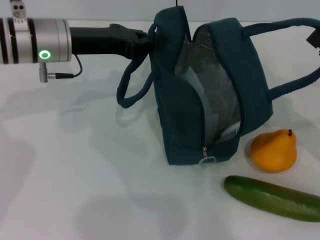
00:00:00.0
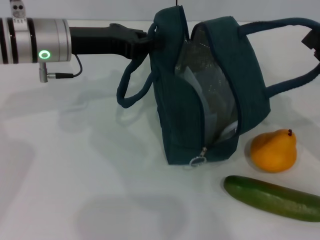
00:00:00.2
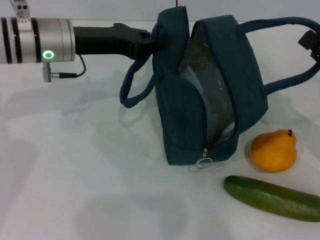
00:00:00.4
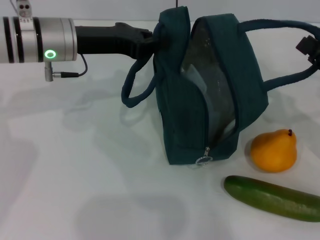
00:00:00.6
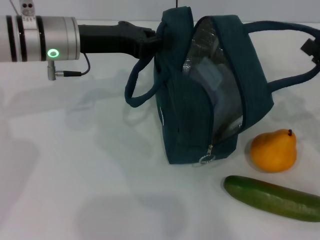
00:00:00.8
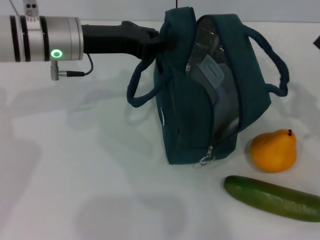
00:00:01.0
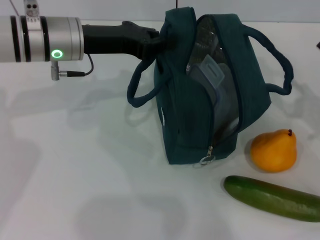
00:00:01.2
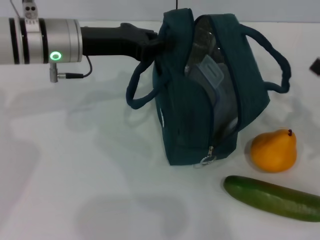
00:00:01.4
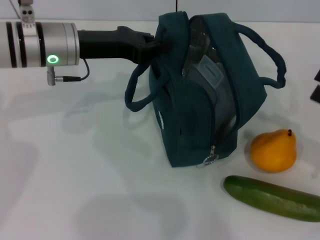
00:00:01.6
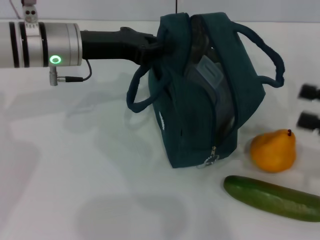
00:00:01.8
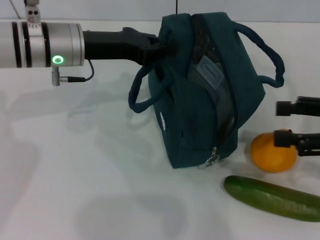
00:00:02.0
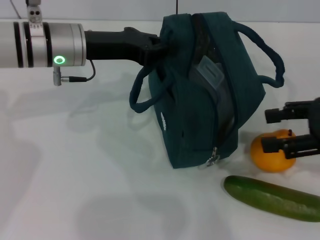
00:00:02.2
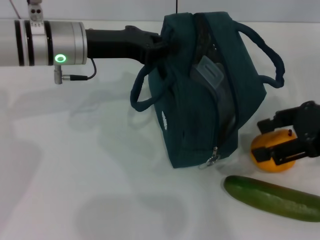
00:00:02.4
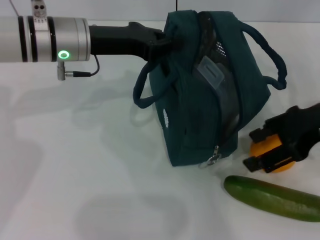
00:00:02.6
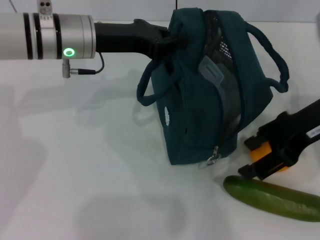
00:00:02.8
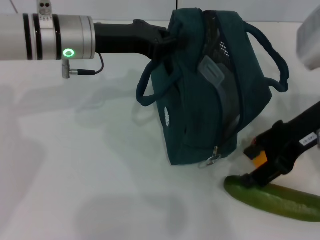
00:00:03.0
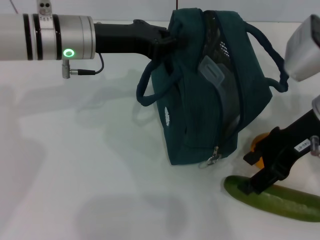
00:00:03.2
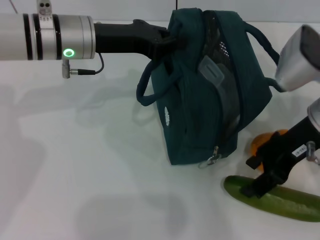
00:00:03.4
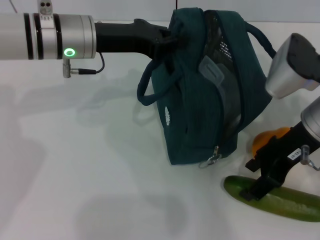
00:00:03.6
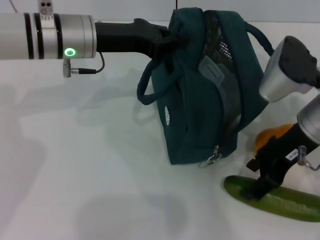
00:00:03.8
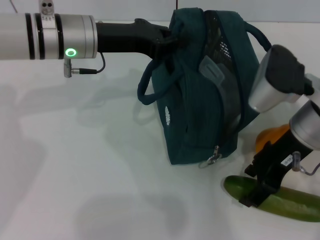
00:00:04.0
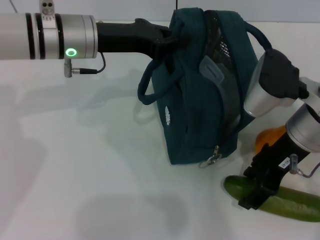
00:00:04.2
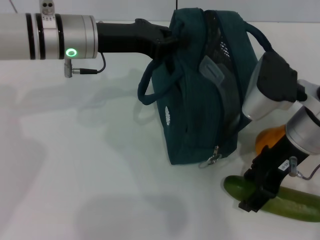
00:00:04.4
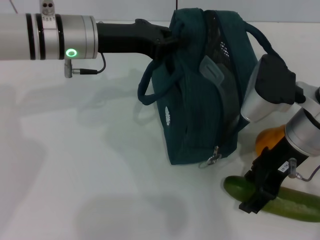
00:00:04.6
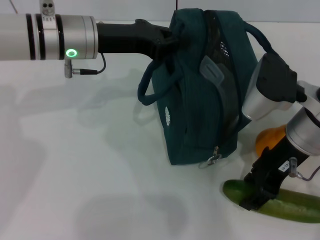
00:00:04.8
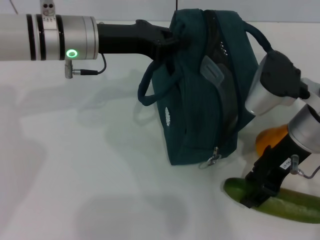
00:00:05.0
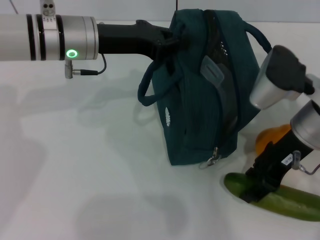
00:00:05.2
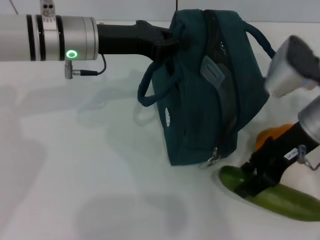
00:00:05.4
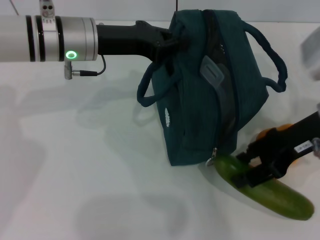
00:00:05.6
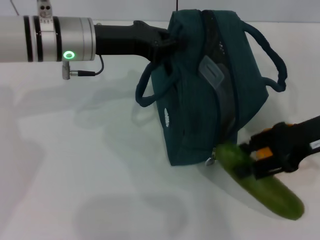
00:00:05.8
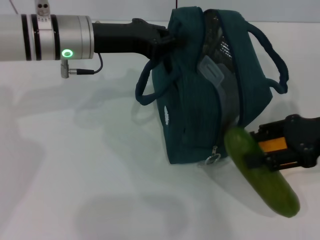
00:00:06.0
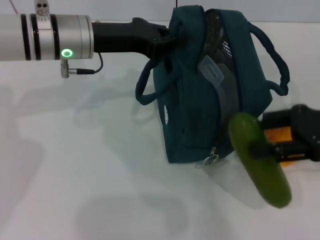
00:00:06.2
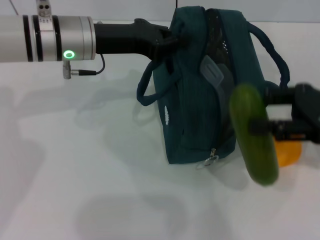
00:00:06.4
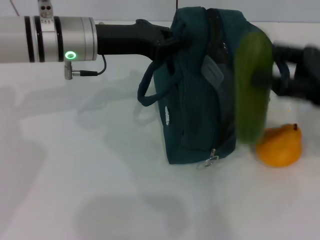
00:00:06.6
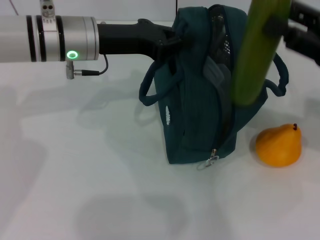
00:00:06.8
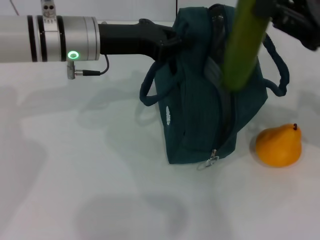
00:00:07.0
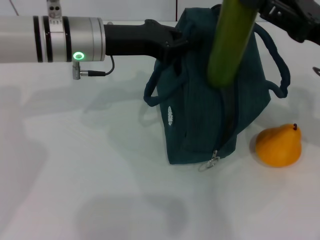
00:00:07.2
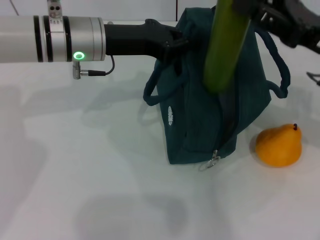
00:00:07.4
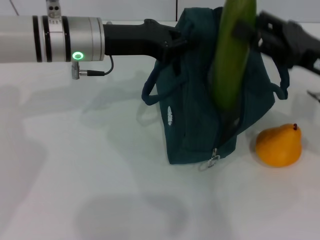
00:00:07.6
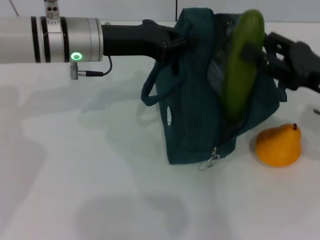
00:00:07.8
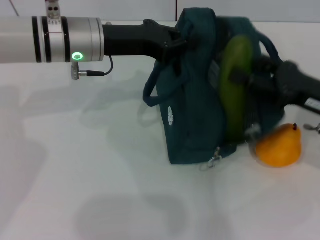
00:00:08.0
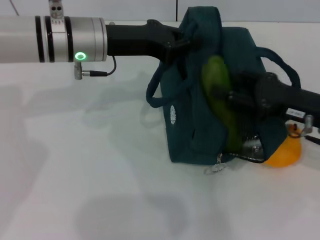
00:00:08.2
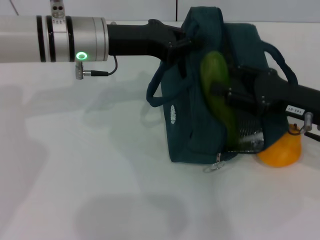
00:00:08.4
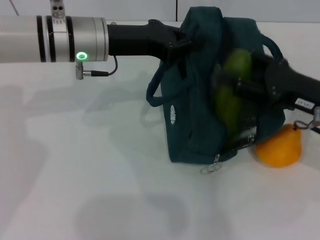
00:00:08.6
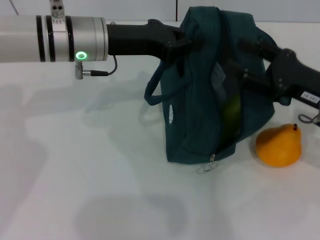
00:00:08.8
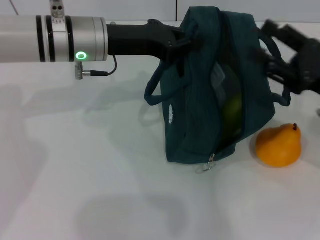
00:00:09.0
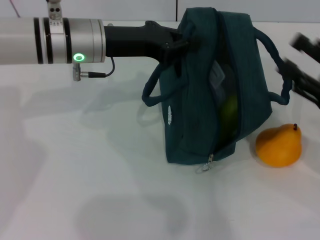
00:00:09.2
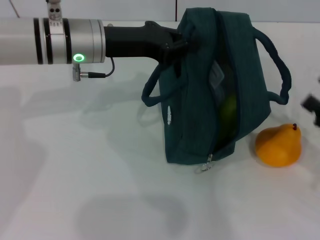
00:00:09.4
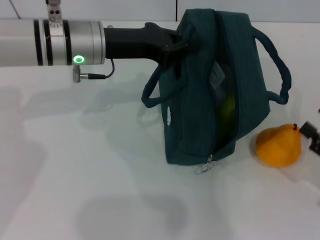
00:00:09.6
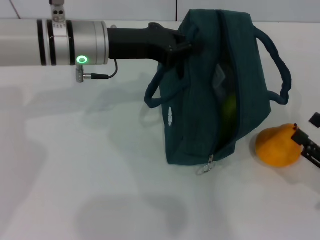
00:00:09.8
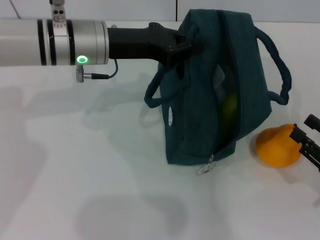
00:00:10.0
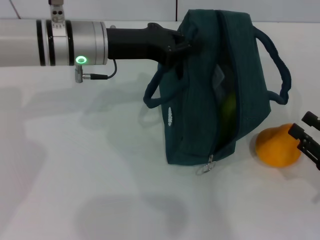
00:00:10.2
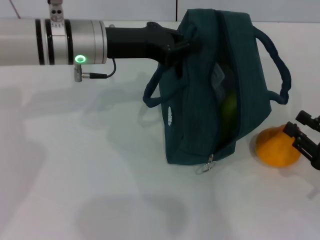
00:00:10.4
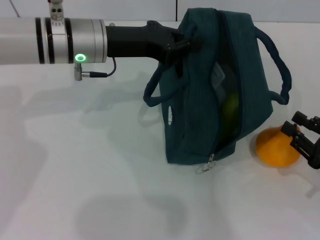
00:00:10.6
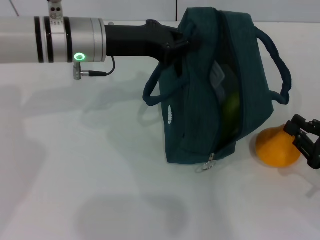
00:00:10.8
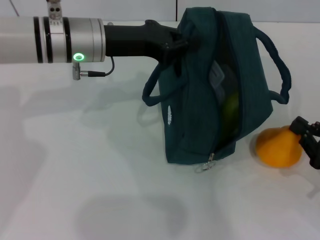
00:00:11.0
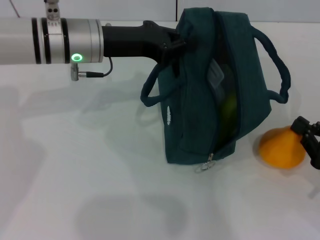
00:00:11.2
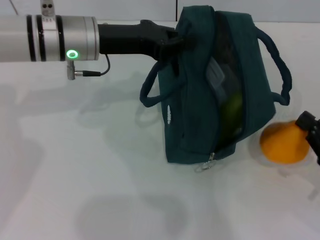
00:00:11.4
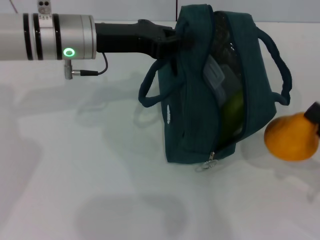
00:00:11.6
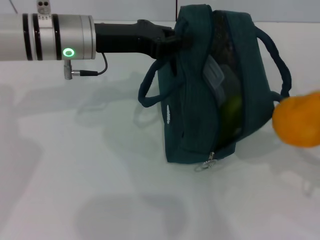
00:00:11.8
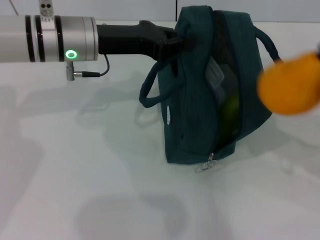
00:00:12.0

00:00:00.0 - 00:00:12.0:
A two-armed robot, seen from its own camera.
Step, 00:00:01.2 - 00:00:05.0: Pick up the cucumber with your right hand.
Step, 00:00:05.2 - 00:00:08.8: Put the cucumber into the lunch bag with your right hand.
Step, 00:00:09.0 - 00:00:11.0: Grab the pear with your right hand.
00:00:00.0 - 00:00:01.6: The right gripper moves some 5 cm, and opens up.
00:00:01.6 - 00:00:03.0: The right gripper goes some 20 cm to the left, upward and forward.
00:00:03.0 - 00:00:04.4: The right gripper changes place by approximately 5 cm.
00:00:04.4 - 00:00:06.0: The right gripper shifts about 10 cm to the right.
00:00:07.6 - 00:00:09.0: The grippers stay close to where they were, moving slightly.
00:00:09.0 - 00:00:10.4: The right gripper moves downward, backward and to the right, approximately 15 cm.
00:00:10.4 - 00:00:12.0: The right gripper travels upward by about 10 cm, and closes up.

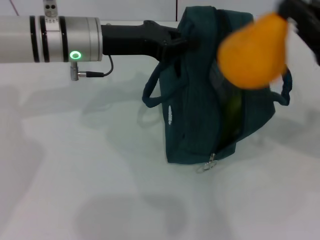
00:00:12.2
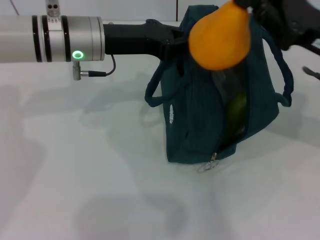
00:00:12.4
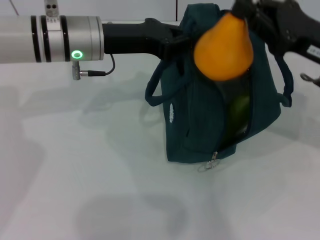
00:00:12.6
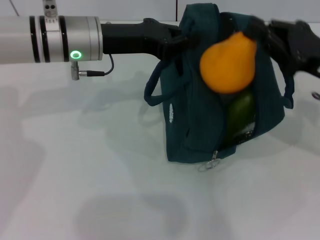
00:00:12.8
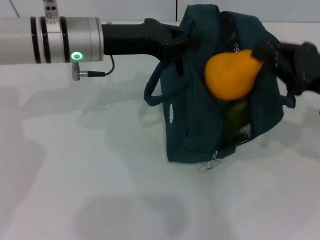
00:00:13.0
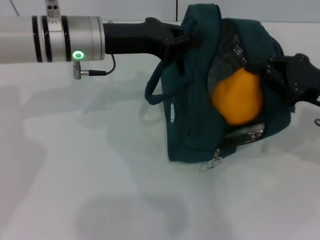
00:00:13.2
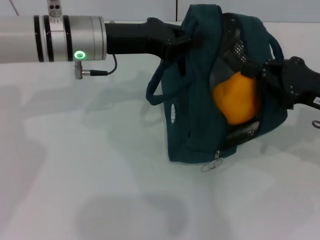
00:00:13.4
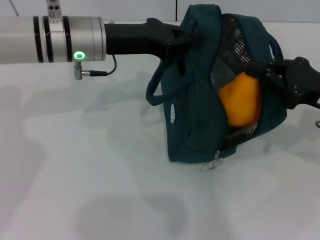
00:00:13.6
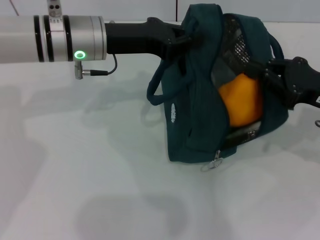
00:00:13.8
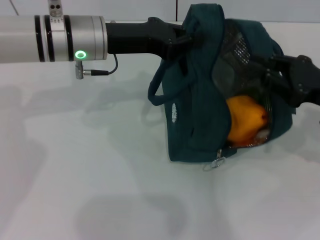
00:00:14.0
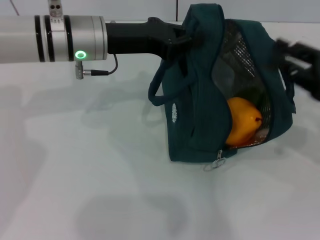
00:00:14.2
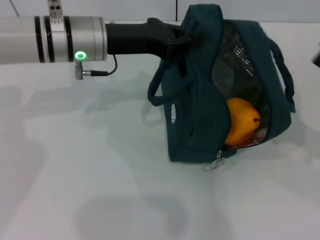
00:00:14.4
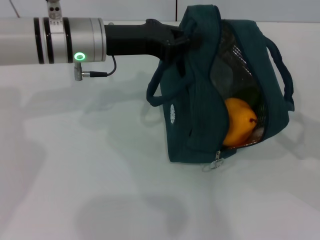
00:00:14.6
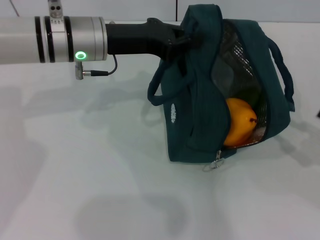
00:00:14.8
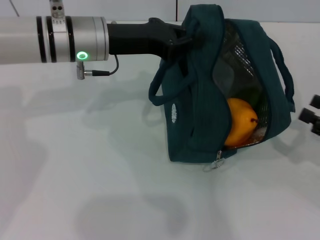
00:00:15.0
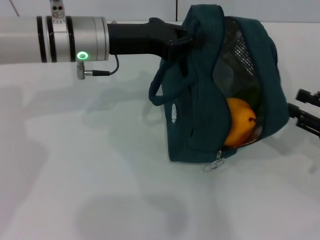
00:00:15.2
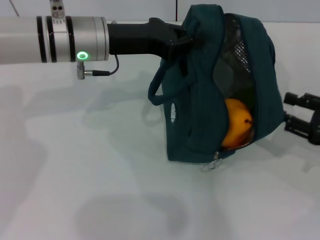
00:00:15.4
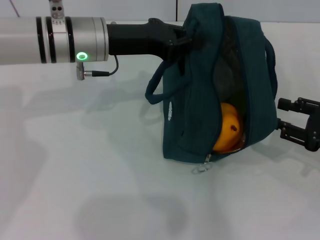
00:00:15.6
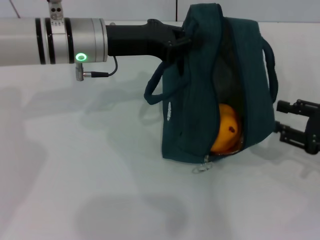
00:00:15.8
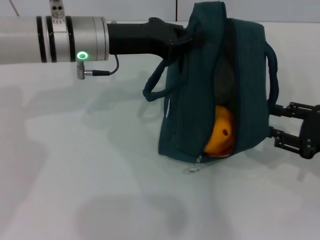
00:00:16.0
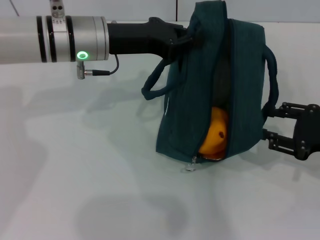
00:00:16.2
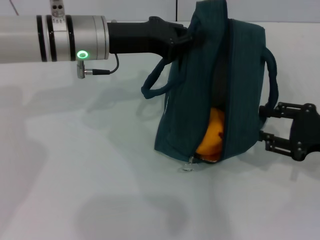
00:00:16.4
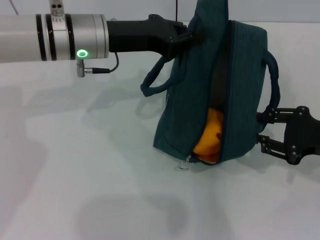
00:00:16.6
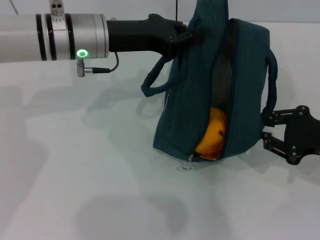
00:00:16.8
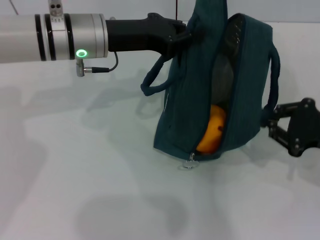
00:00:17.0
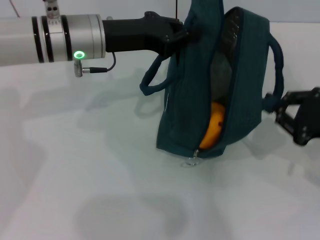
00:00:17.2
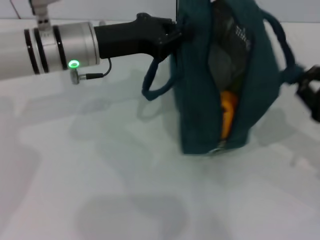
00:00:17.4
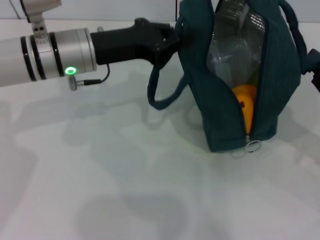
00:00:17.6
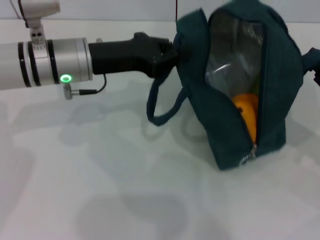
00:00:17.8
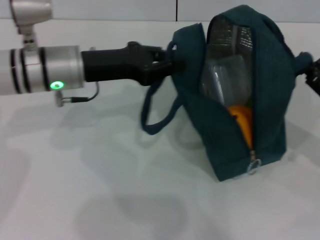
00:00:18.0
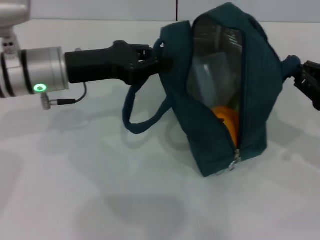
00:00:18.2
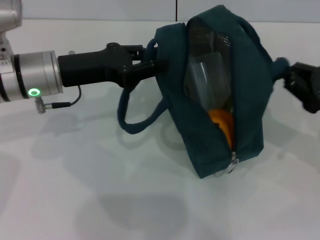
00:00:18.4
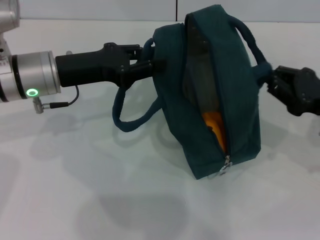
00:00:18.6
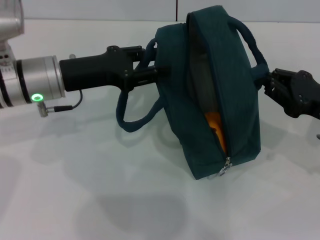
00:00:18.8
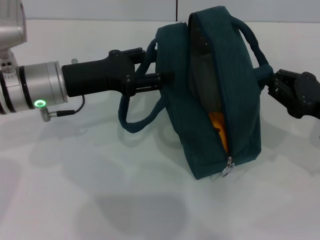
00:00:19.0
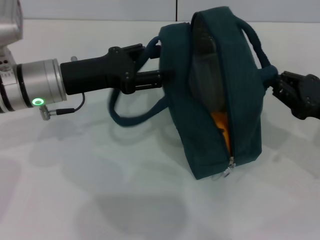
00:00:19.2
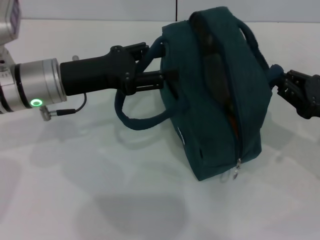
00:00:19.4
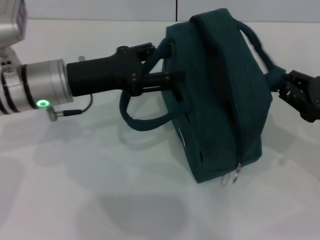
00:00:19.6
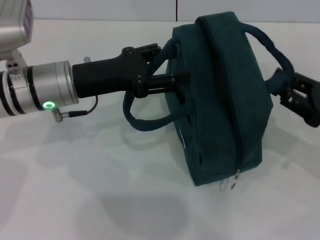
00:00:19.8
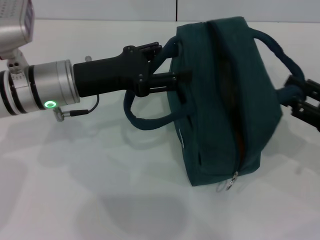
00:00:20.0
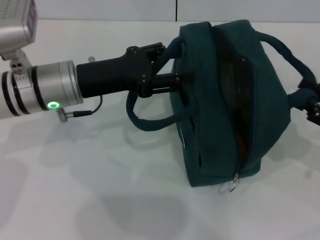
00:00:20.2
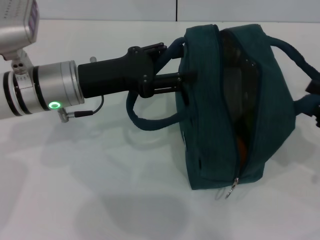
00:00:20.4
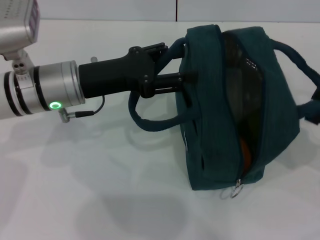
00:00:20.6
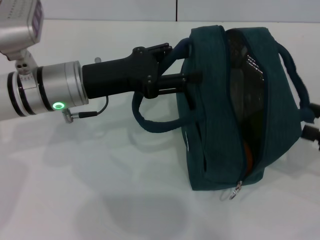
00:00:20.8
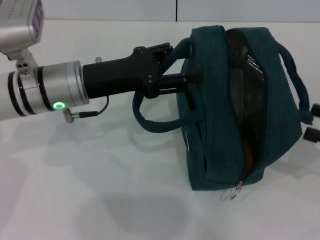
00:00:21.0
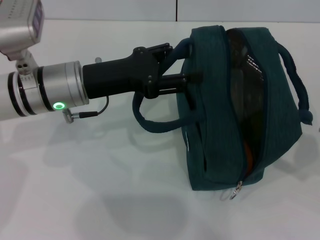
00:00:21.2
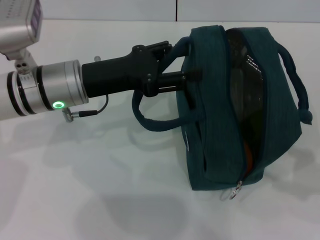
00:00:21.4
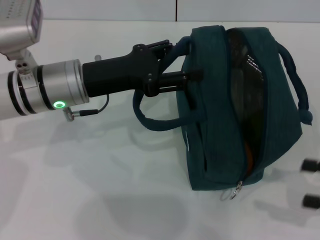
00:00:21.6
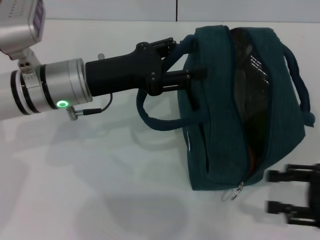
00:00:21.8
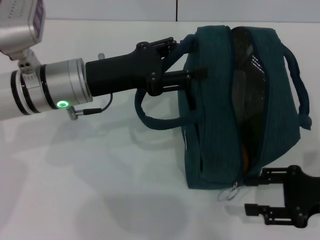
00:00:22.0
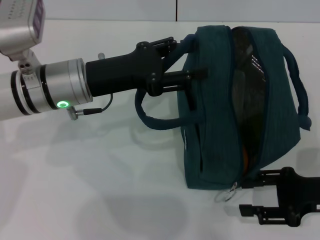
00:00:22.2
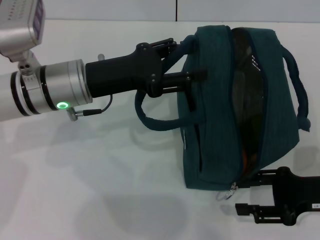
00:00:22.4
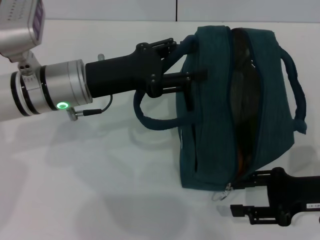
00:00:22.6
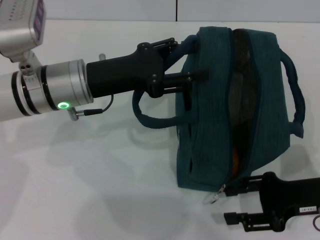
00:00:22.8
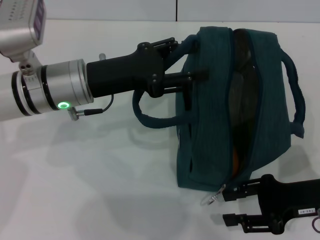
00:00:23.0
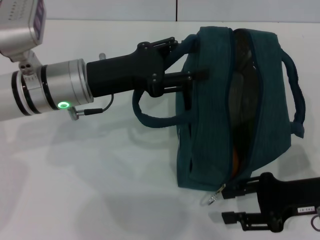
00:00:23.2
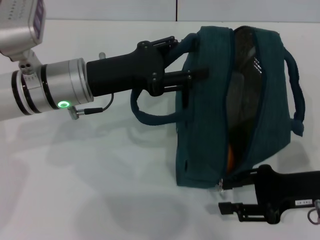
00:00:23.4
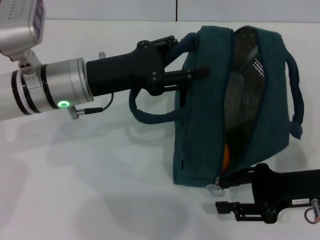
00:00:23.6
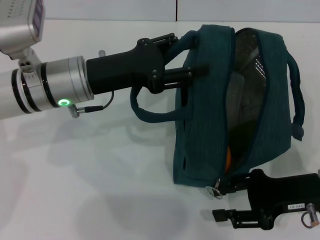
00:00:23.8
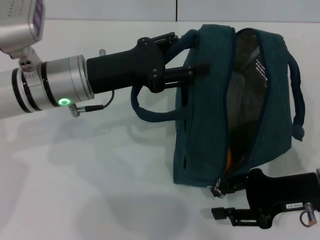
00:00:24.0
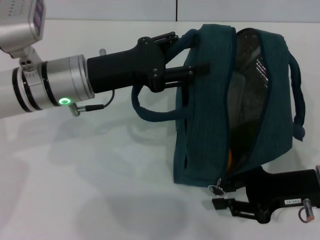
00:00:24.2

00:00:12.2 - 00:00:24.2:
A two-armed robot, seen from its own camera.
Step, 00:00:14.2 - 00:00:21.0: Hold the lunch bag with your right hand.
00:00:13.8 - 00:00:15.2: The right gripper shifts about 5 cm to the right, and opens.
00:00:16.6 - 00:00:18.2: The right gripper closes its fingers, while the left gripper moves to the left, about 5 cm.
00:00:18.2 - 00:00:19.8: The left gripper opens.
00:00:19.8 - 00:00:21.2: The right gripper is displaced to the right by roughly 5 cm, and opens.
00:00:21.2 - 00:00:22.6: The right gripper goes approximately 10 cm to the left and downward.
00:00:22.6 - 00:00:24.2: There are only small adjustments of the grippers.
